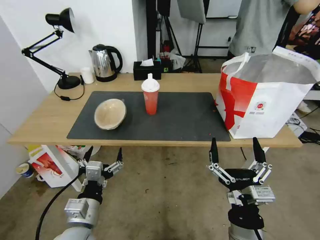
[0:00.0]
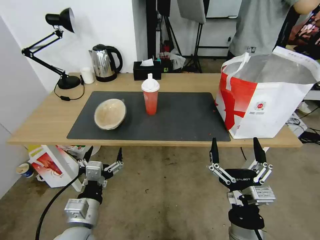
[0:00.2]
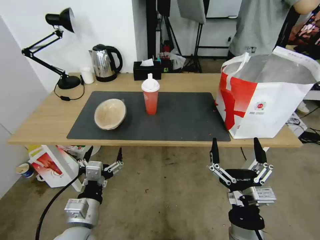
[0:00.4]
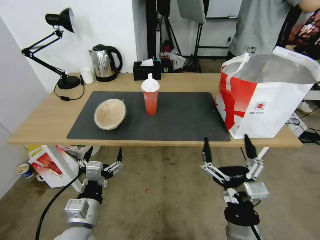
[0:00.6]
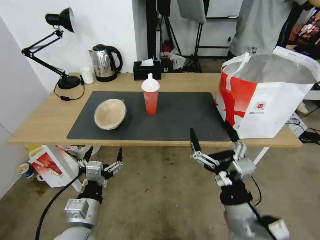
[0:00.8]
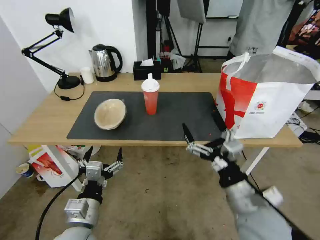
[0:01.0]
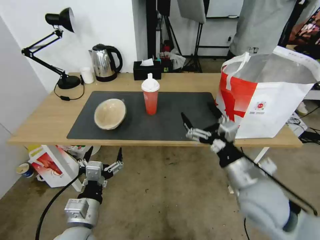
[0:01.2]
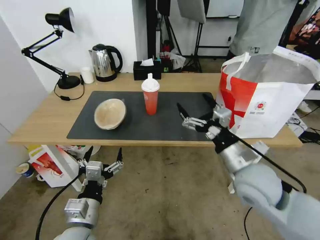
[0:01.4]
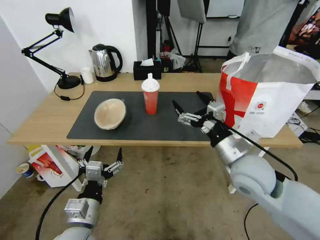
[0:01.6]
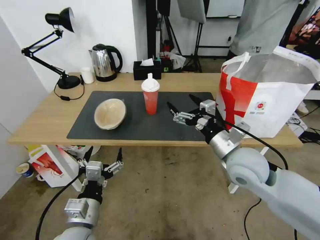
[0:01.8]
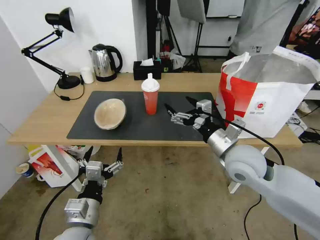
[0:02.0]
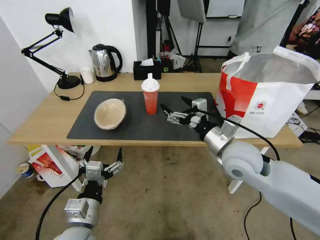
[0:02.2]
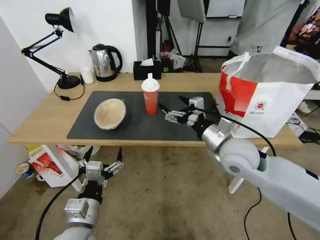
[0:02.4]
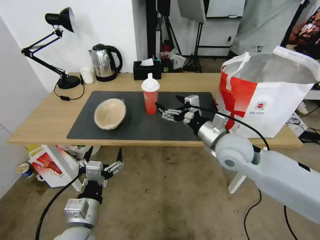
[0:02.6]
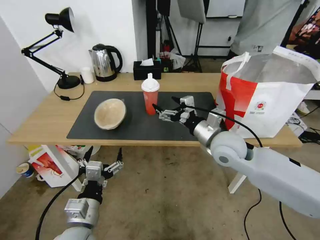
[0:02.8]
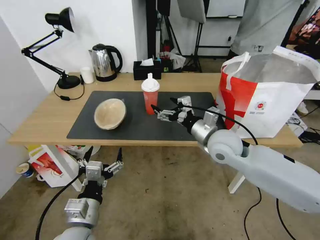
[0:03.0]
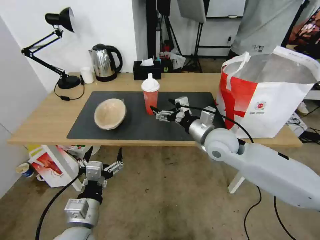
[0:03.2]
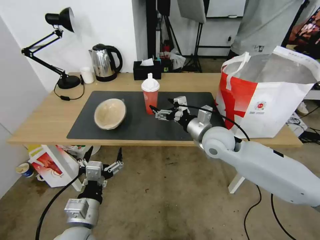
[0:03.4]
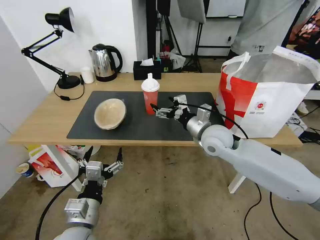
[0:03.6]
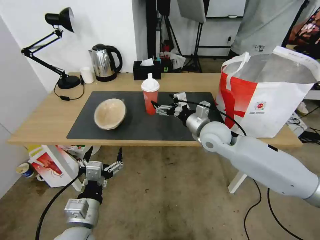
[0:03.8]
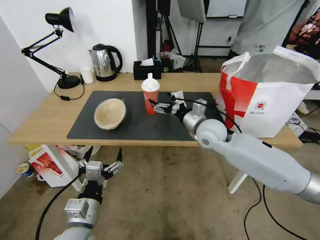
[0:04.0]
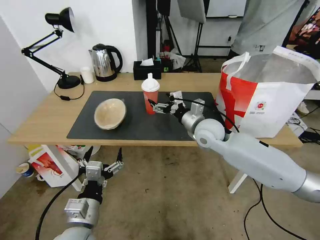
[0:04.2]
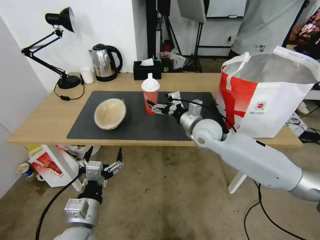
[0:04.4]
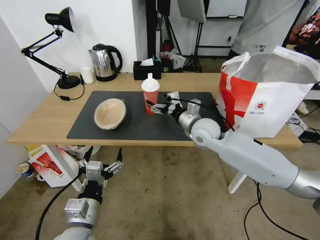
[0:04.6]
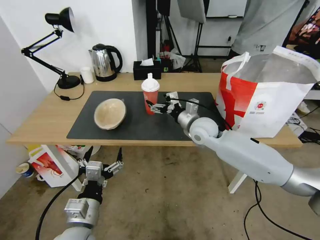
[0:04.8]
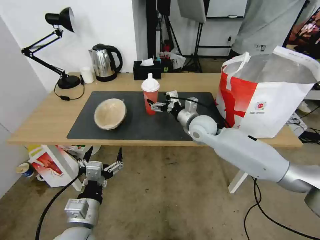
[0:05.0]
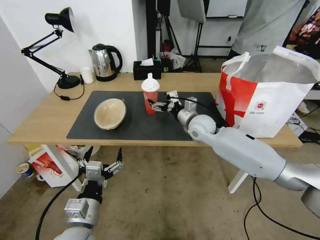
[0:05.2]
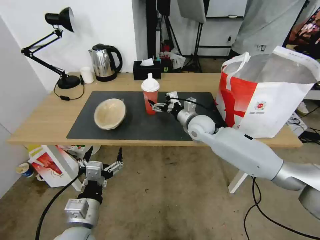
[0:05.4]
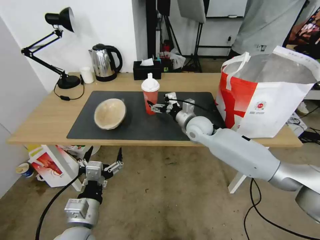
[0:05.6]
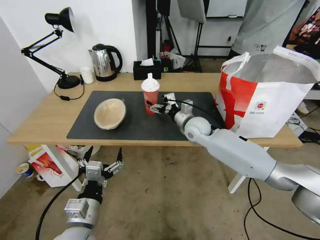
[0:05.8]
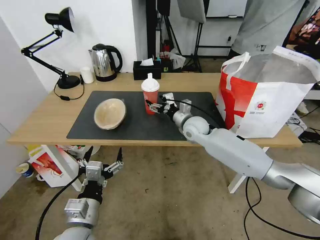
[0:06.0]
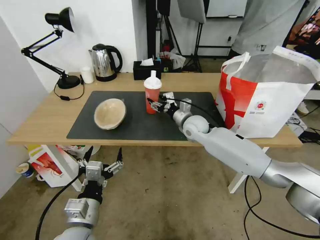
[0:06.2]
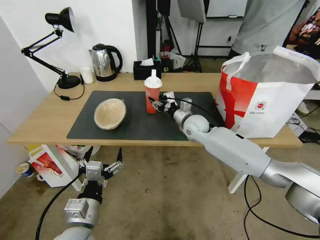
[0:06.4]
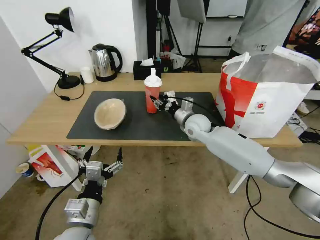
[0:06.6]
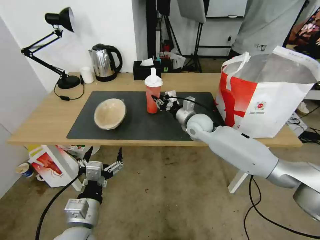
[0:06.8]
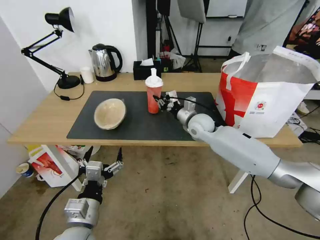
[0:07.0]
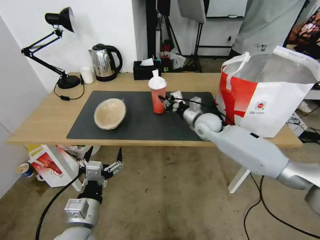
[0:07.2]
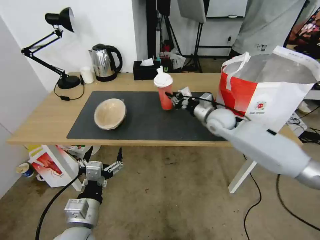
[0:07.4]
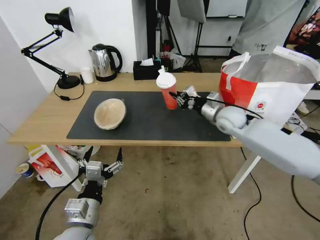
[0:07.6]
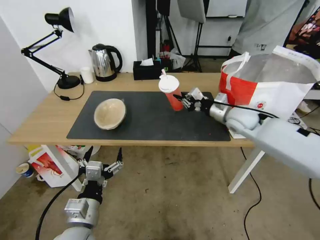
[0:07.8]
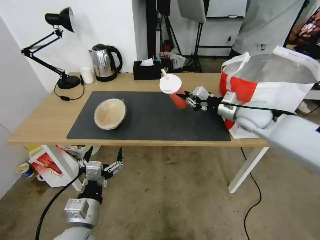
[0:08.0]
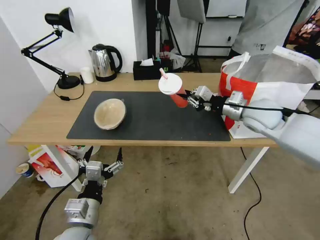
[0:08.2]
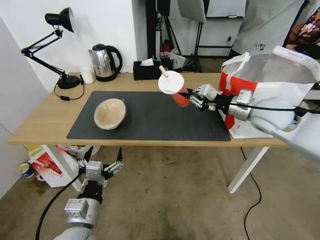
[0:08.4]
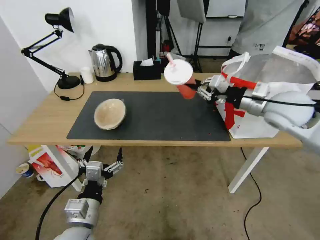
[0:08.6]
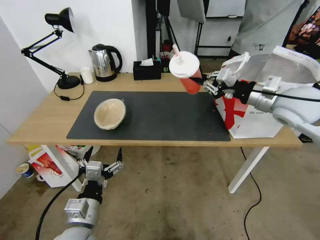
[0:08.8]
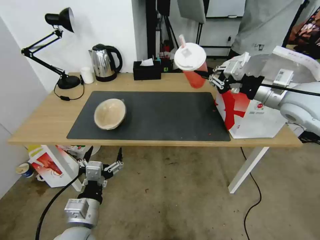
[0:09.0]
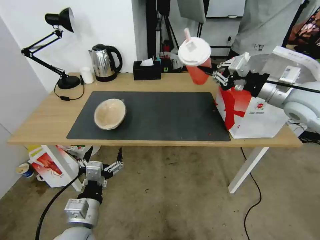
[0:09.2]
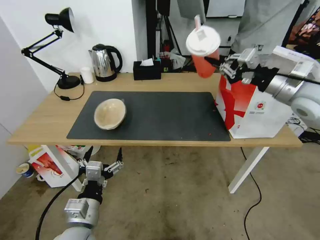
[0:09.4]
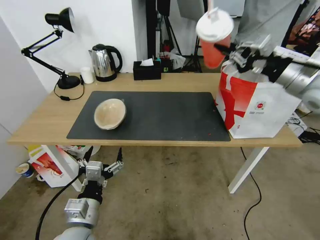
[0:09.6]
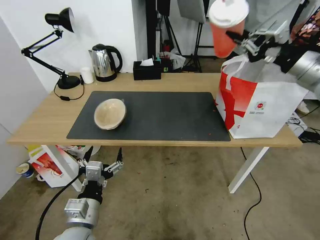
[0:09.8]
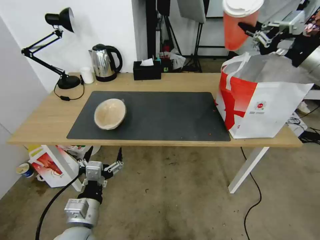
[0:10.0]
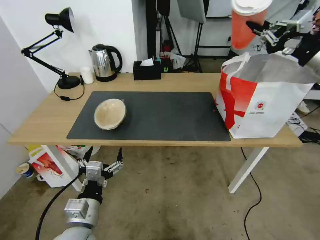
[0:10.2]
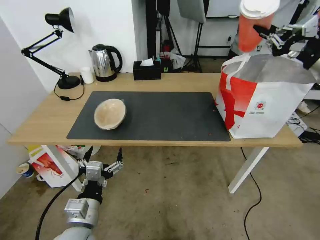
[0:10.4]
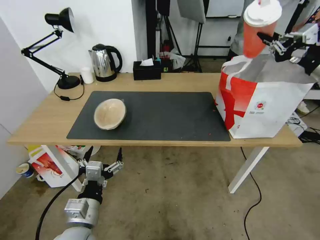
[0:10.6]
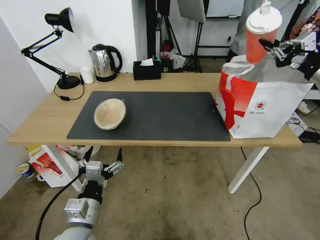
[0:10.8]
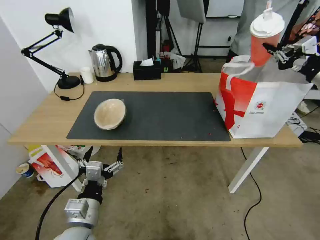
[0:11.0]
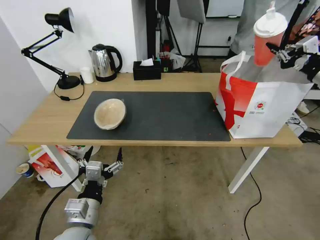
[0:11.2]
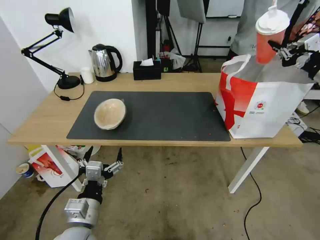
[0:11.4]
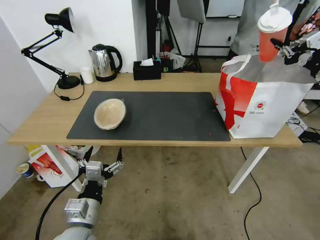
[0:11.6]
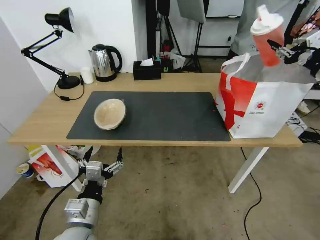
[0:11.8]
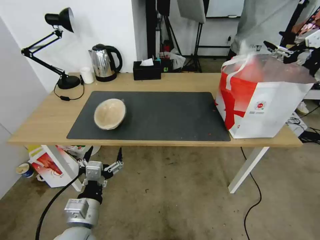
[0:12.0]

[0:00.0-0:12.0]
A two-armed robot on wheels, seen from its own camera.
Task of the whole recording: Pick up the trash from the table and place it into the takeout bag.
0:00.0 to 0:01.6: The right gripper moves forward and upward, about 20 cm.
0:01.6 to 0:03.0: The right gripper travels forward by approximately 10 cm.
0:03.0 to 0:04.4: The right gripper goes about 5 cm forward.
0:04.4 to 0:06.0: The right gripper shifts approximately 5 cm forward.
0:06.0 to 0:07.6: The right gripper is displaced to the right and upward by roughly 15 cm, and closes up.
0:07.6 to 0:09.0: The right gripper travels upward, backward and to the right by some 20 cm.
0:09.0 to 0:10.4: The right gripper is displaced to the right and upward by approximately 15 cm.
0:10.4 to 0:12.0: The right gripper ends up approximately 5 cm from where it was, and opens its fingers.

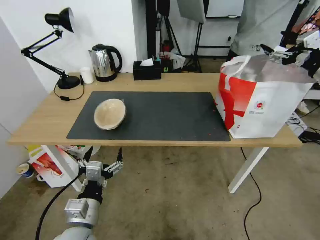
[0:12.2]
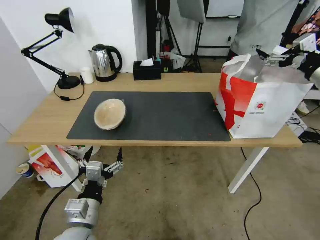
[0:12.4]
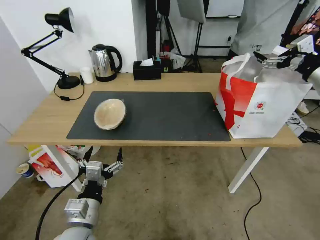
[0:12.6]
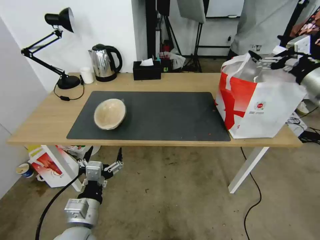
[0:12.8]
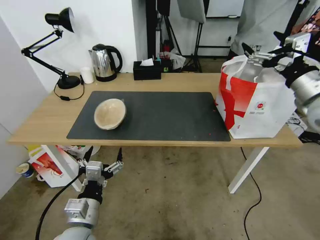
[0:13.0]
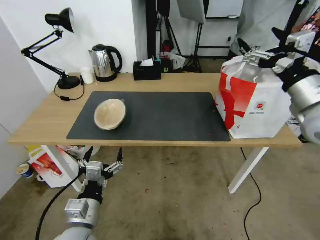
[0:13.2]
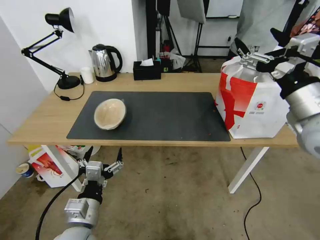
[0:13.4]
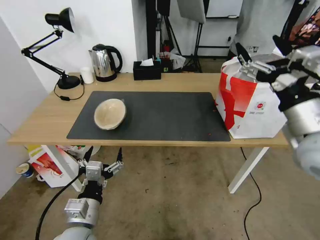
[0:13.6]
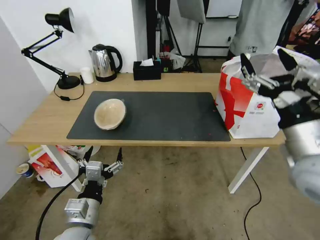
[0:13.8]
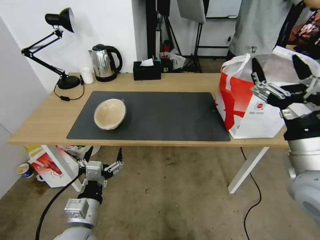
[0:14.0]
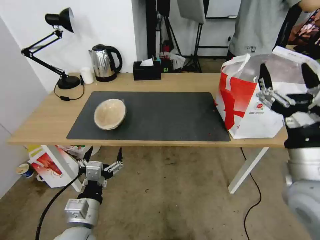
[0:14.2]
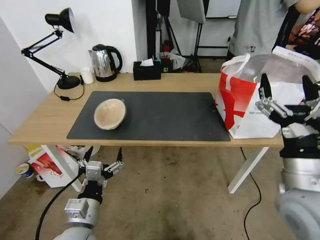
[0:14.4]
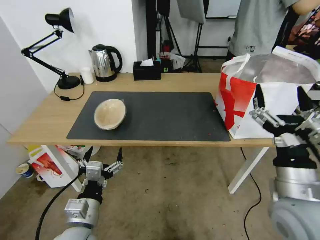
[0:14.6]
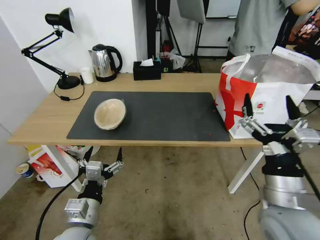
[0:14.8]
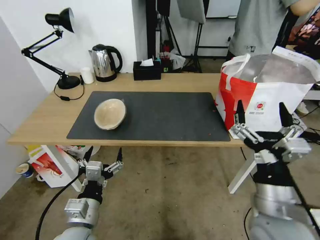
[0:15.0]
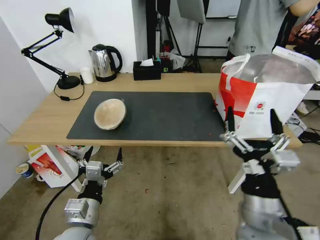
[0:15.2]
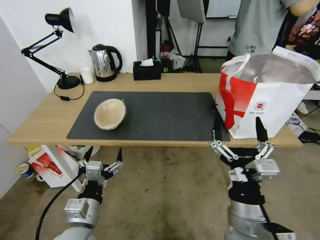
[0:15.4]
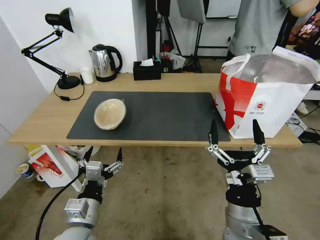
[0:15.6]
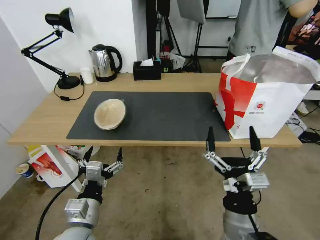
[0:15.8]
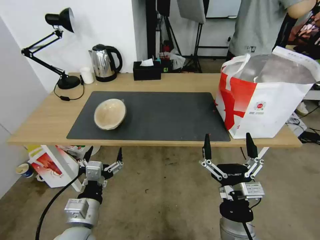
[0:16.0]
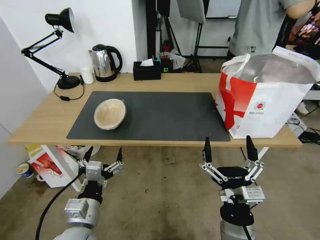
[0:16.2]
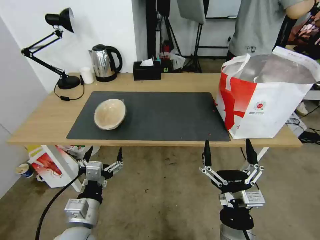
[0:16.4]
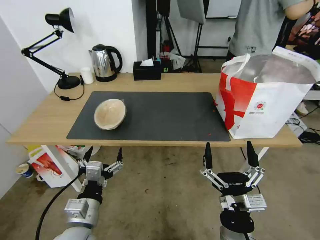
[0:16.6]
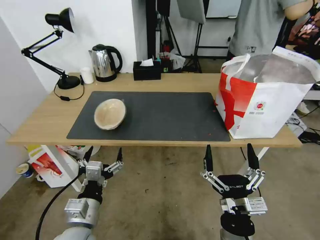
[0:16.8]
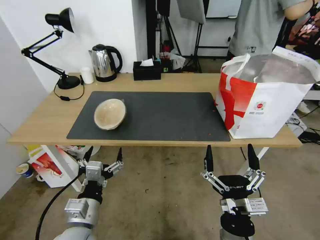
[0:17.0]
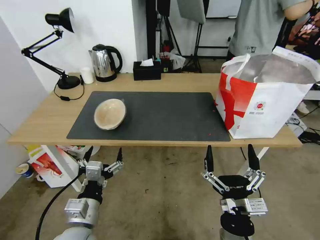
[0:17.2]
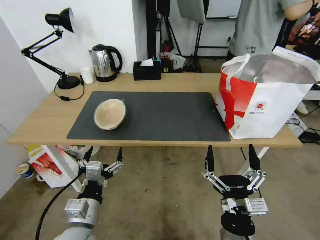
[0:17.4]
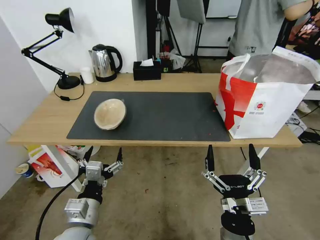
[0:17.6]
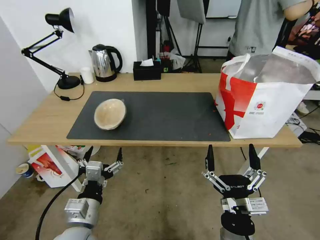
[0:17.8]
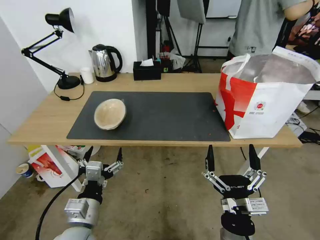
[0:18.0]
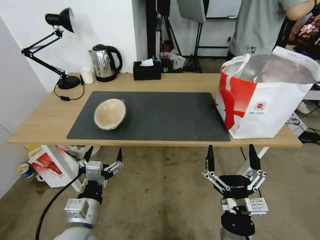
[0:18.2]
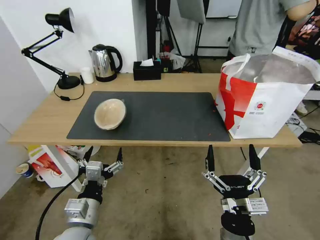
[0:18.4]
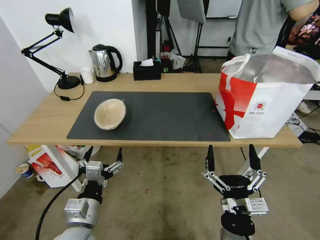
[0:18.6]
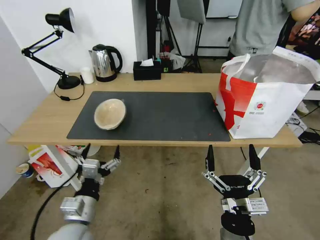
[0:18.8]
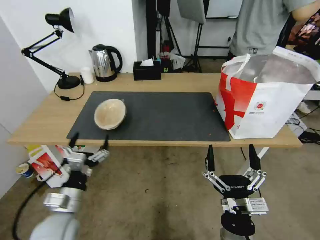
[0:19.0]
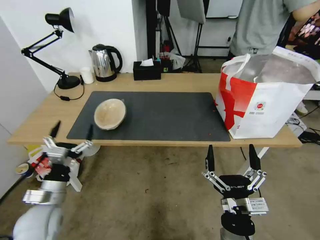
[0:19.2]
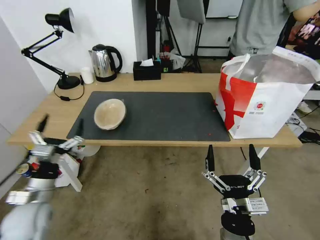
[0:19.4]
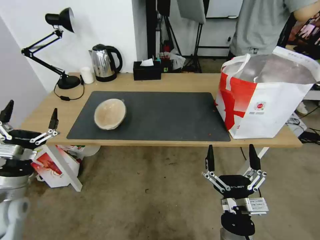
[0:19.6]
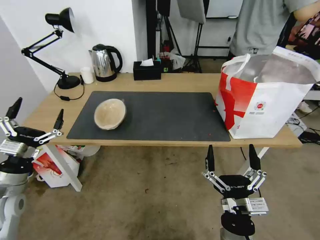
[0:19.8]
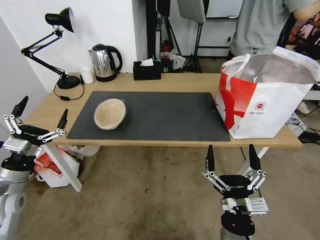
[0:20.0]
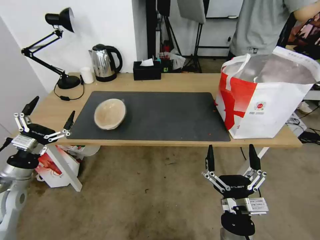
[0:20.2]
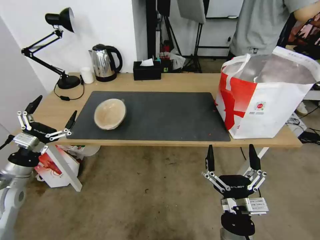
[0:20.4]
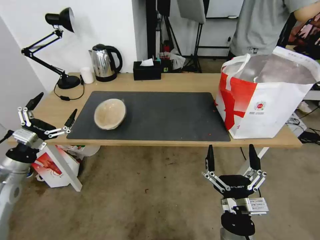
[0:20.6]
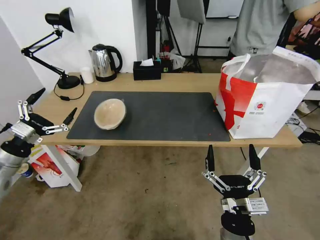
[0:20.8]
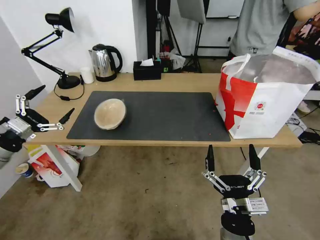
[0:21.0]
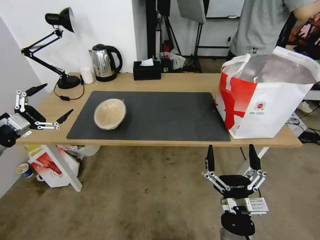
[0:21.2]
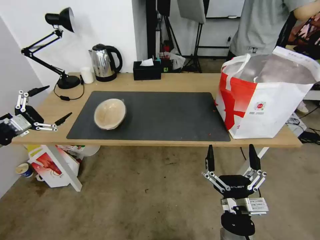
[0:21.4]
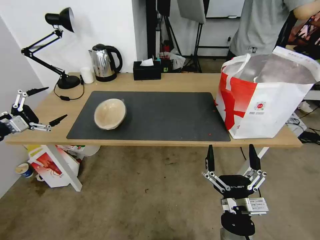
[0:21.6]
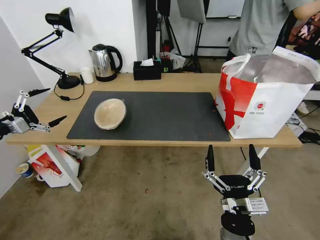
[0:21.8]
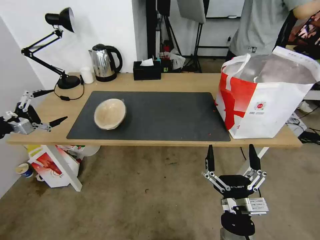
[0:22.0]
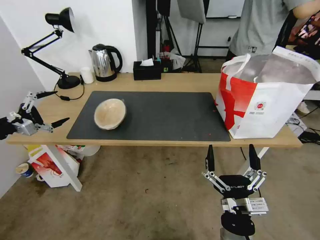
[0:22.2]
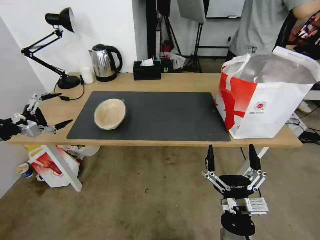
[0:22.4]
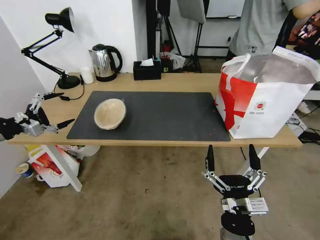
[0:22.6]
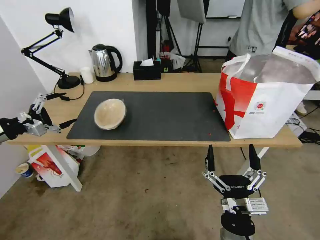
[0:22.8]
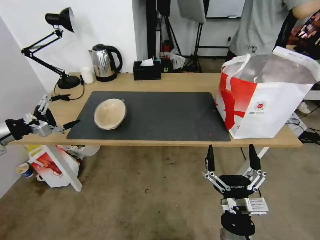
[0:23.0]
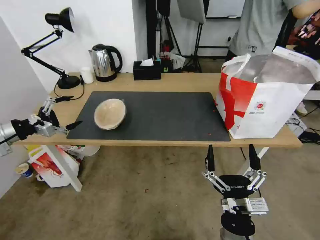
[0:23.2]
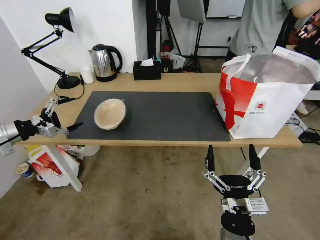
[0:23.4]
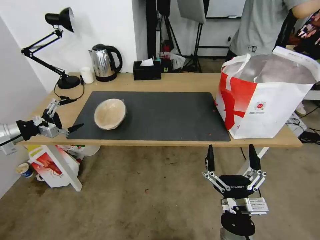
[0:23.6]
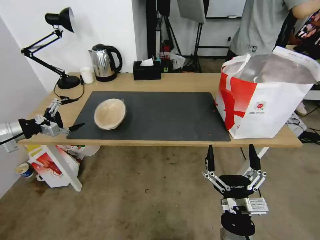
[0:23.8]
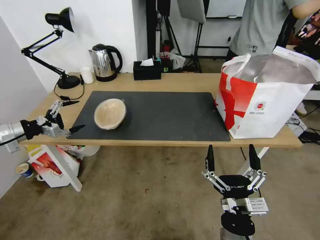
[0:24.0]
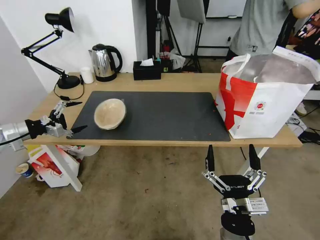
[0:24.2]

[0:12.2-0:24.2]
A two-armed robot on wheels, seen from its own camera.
Task of the whole recording: Pick up the trash from the table and place it into the takeout bag.
0:12.2 to 0:13.8: The right gripper goes roughly 25 cm to the left and backward.
0:13.8 to 0:15.2: The right gripper is displaced downward, to the left and backward by approximately 15 cm.
0:15.2 to 0:16.6: The right gripper shifts approximately 10 cm downward.
0:16.6 to 0:18.2: Neither gripper changes place.
0:18.2 to 0:19.8: The left gripper goes approximately 20 cm to the left.
0:19.8 to 0:21.2: The left gripper moves to the left, upward and forward, roughly 15 cm.
0:21.2 to 0:22.6: The left gripper changes place by roughly 5 cm.
0:22.6 to 0:24.2: The left gripper ends up some 5 cm from where it was.
